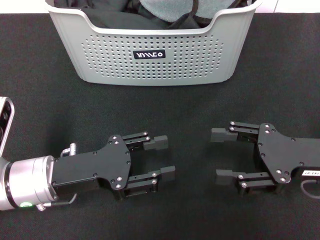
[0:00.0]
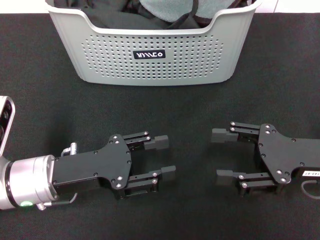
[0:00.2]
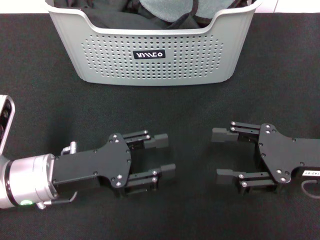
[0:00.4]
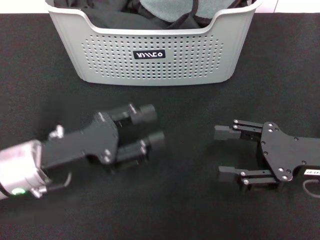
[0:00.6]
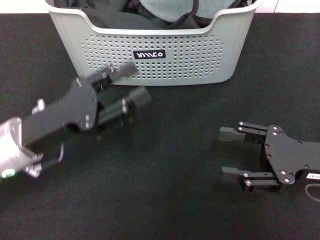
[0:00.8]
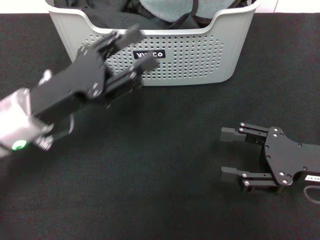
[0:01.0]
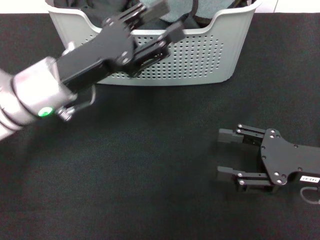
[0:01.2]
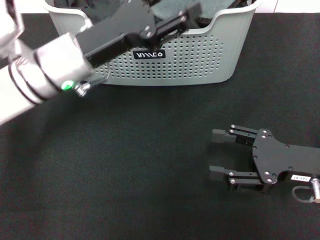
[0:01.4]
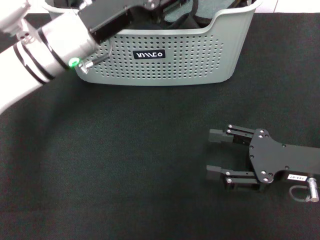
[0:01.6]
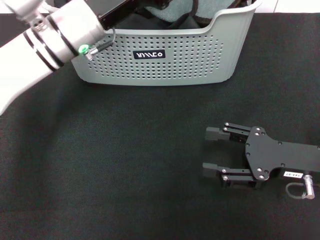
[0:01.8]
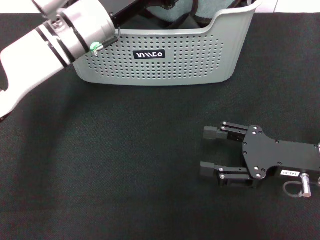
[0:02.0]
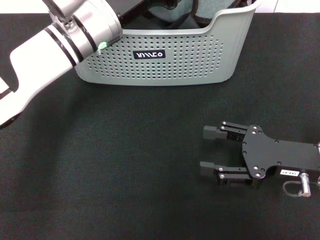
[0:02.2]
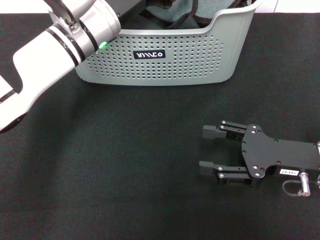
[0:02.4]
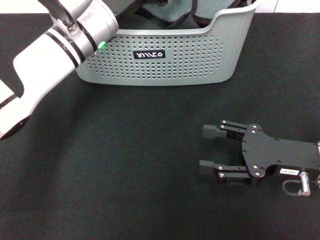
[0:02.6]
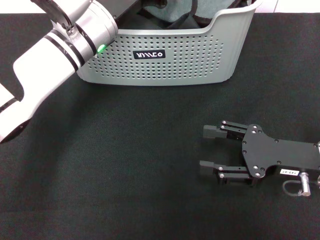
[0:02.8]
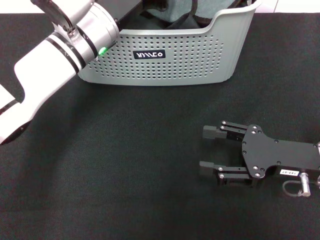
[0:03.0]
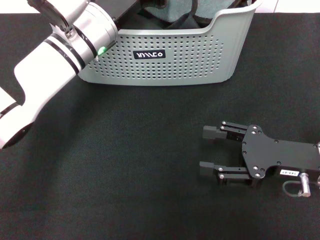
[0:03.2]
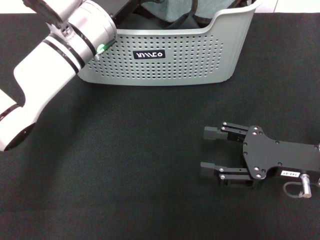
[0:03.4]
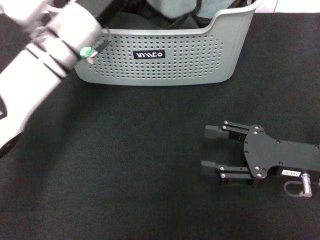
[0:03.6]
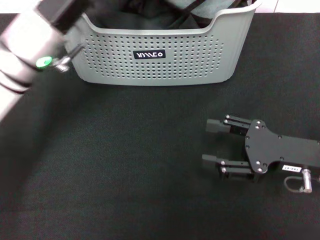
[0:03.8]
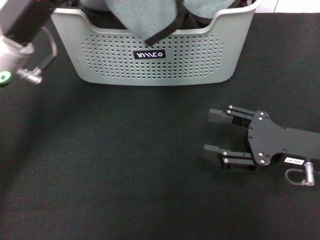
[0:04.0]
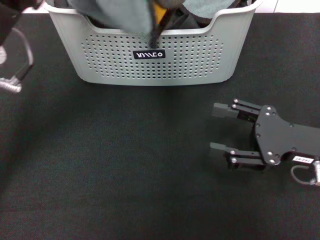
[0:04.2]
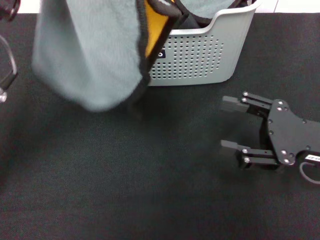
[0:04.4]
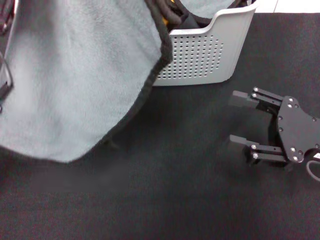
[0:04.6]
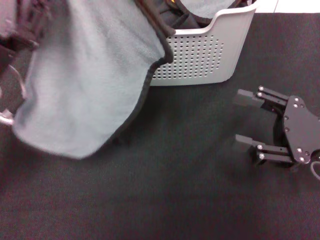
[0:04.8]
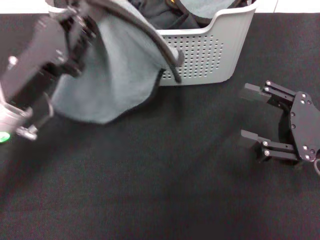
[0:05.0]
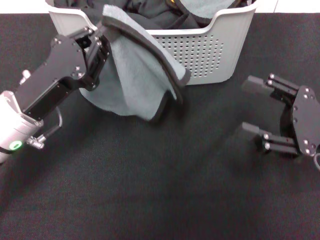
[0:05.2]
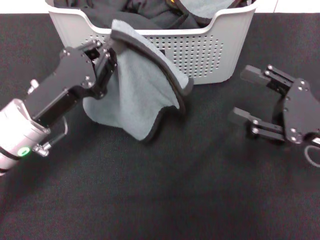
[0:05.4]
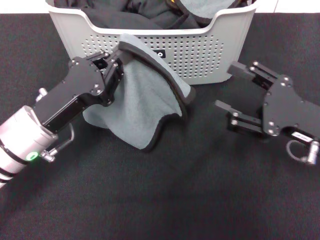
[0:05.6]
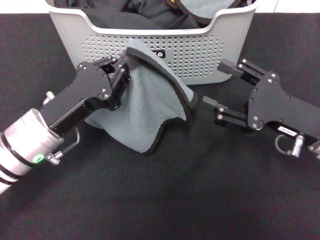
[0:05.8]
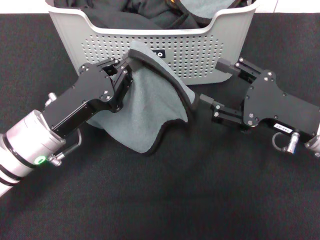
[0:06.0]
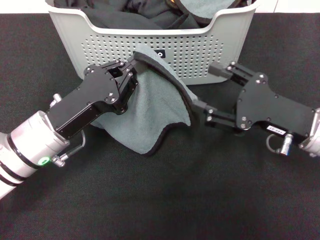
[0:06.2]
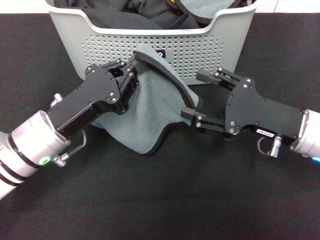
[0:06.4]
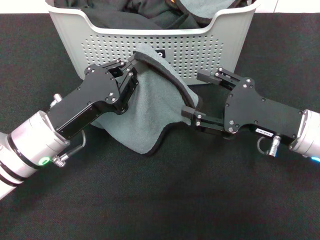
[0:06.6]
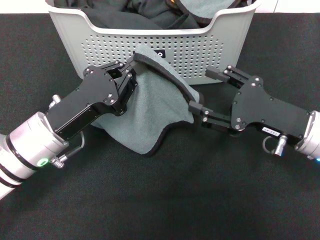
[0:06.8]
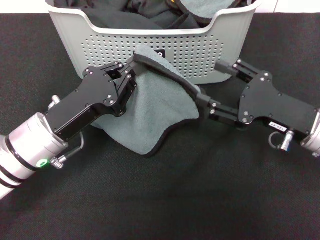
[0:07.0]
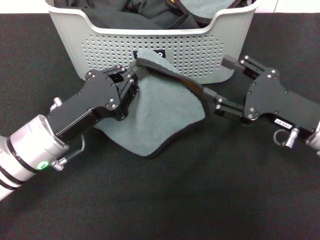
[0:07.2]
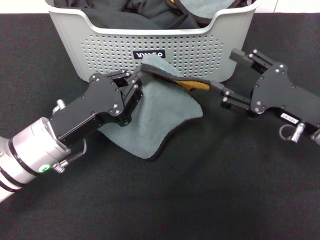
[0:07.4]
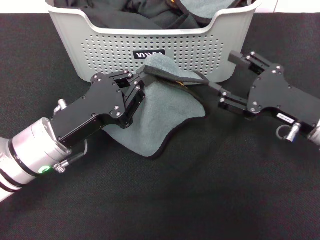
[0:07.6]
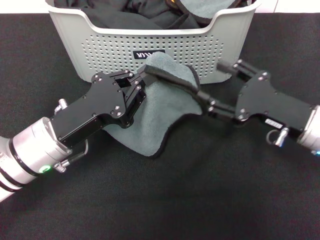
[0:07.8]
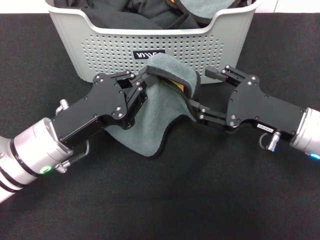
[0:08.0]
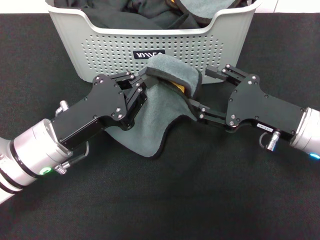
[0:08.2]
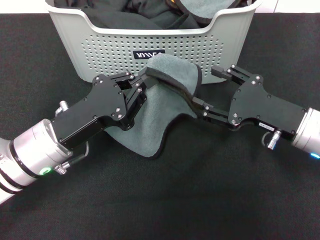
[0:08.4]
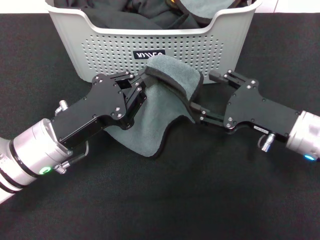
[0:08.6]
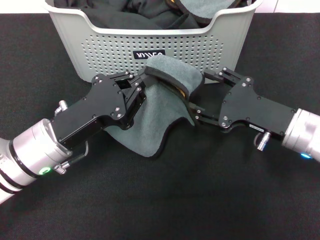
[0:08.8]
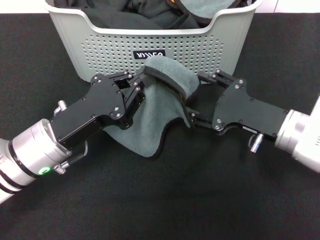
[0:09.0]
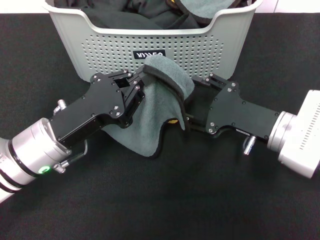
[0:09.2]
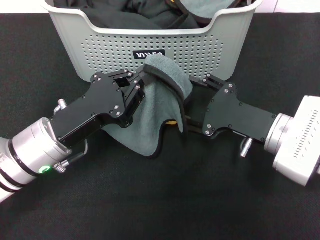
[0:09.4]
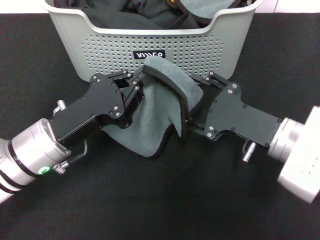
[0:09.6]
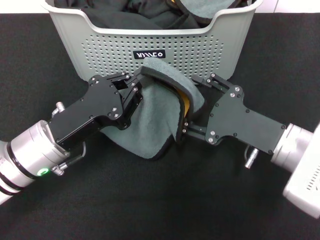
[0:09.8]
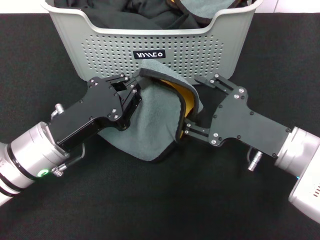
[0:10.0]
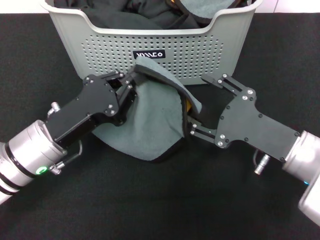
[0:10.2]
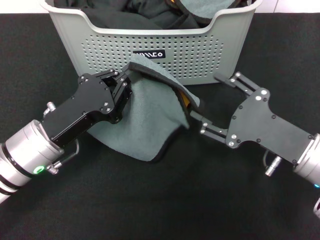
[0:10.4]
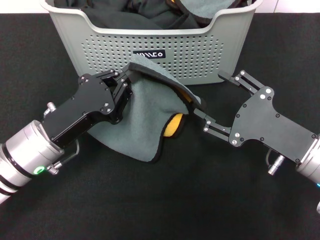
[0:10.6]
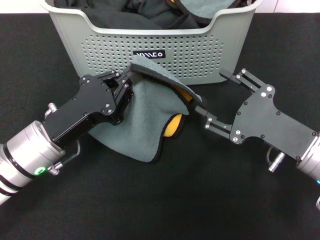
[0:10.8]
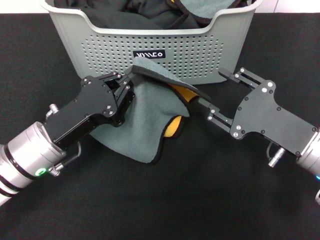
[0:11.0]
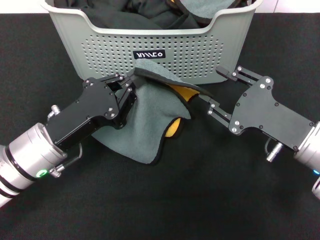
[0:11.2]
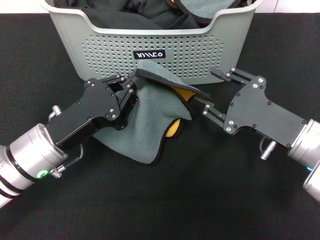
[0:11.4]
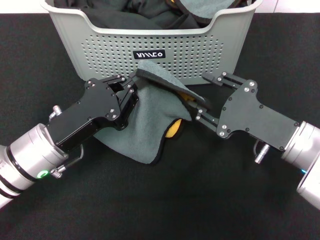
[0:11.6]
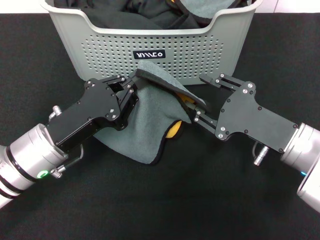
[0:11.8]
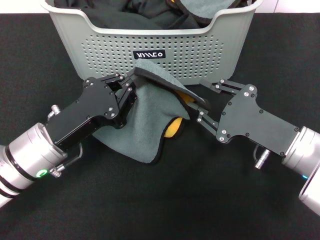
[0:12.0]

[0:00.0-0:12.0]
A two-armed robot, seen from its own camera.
Task of the whole recording: pick up the towel from the storage box and lay it flat on the black tablecloth.
Step, 0:00.0 to 0:03.2: Pick up a towel with the left gripper.
0:00.0 to 0:01.6: The left gripper heads forward and upward, covering some 15 cm.
0:01.6 to 0:03.0: The left gripper closes.
0:03.0 to 0:04.4: The left gripper goes roughly 15 cm backward, to the left and upward, and closes up.
0:04.4 to 0:06.0: The left gripper shifts about 10 cm downward.
0:06.0 to 0:07.6: The grippers move only a little.
0:07.6 to 0:09.0: The grippers move only a little.
0:09.0 to 0:10.4: The right gripper travels backward by some 5 cm.
0:10.4 to 0:12.0: The grippers stay close to where they were, moving slightly.

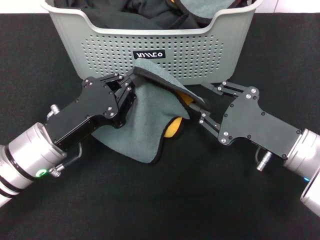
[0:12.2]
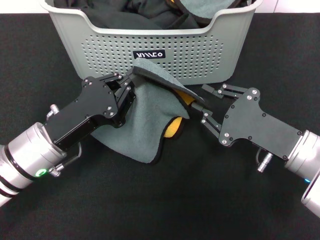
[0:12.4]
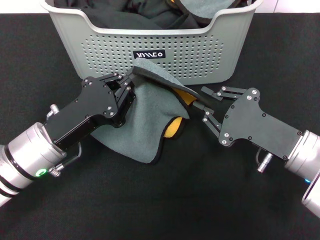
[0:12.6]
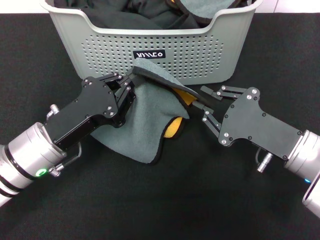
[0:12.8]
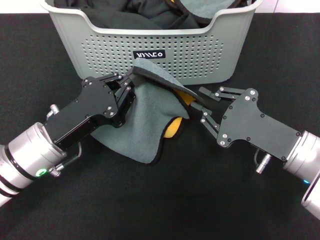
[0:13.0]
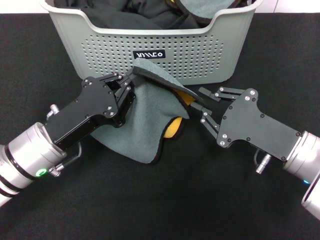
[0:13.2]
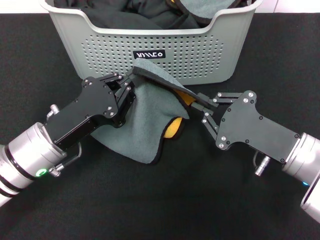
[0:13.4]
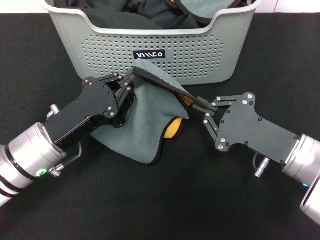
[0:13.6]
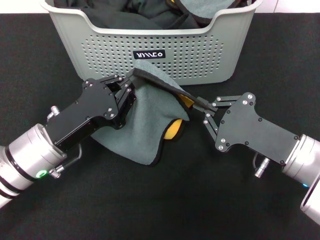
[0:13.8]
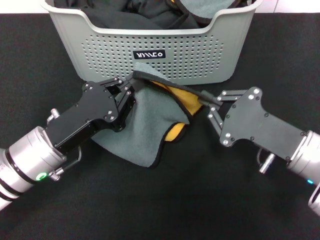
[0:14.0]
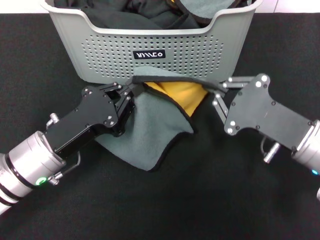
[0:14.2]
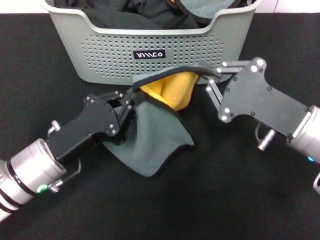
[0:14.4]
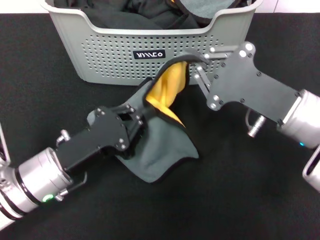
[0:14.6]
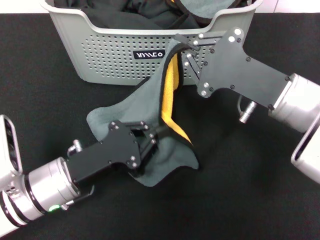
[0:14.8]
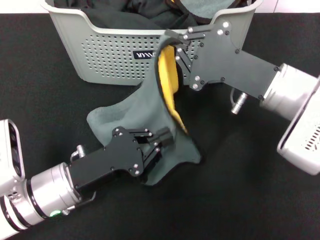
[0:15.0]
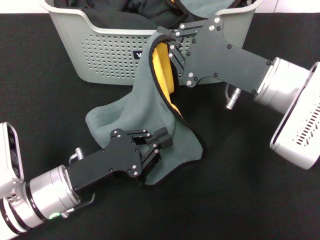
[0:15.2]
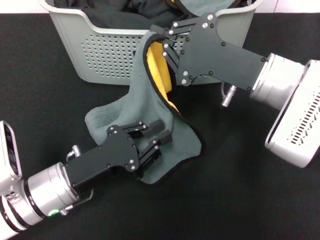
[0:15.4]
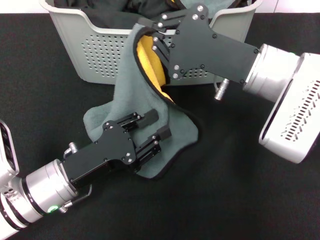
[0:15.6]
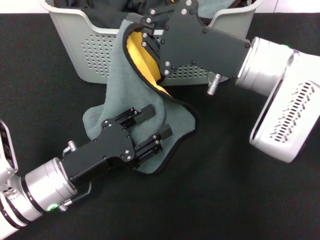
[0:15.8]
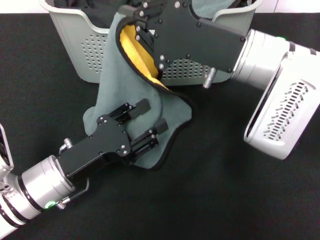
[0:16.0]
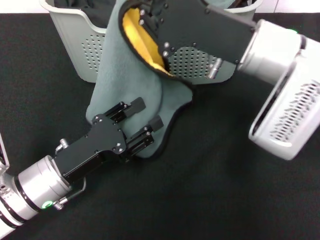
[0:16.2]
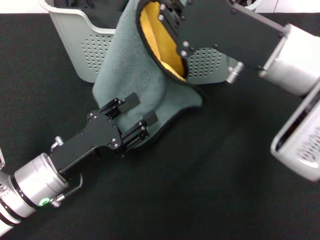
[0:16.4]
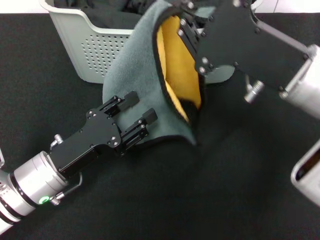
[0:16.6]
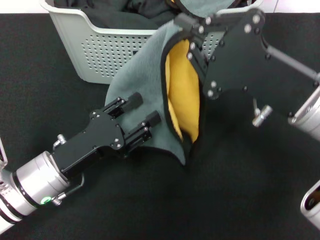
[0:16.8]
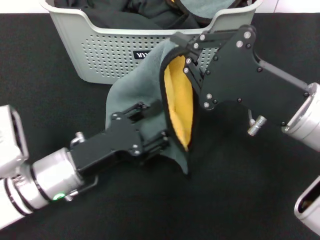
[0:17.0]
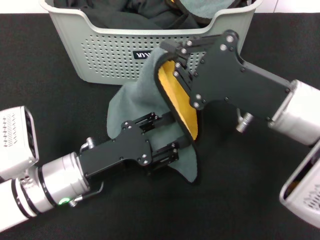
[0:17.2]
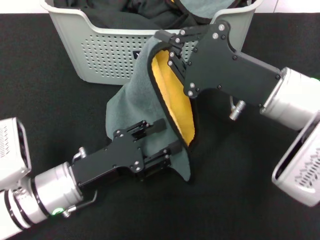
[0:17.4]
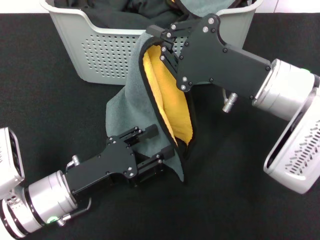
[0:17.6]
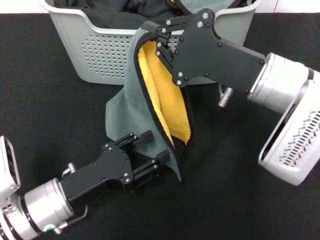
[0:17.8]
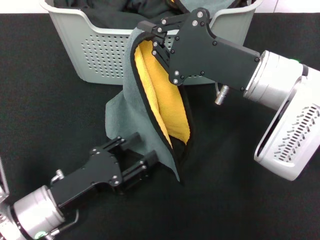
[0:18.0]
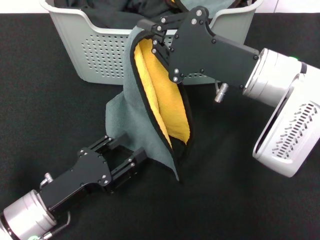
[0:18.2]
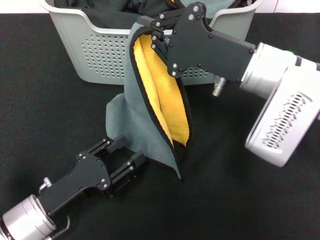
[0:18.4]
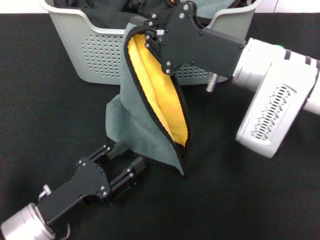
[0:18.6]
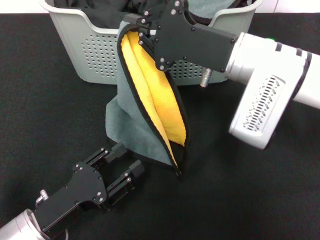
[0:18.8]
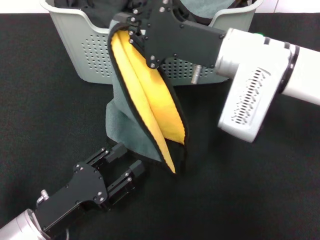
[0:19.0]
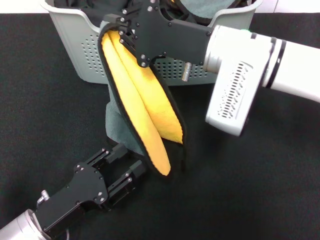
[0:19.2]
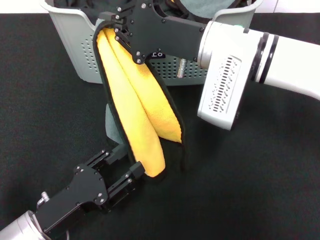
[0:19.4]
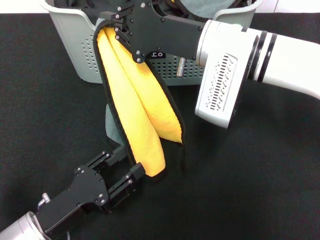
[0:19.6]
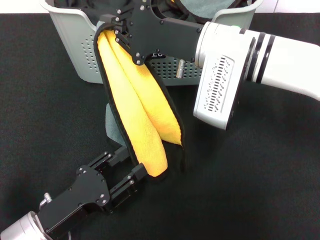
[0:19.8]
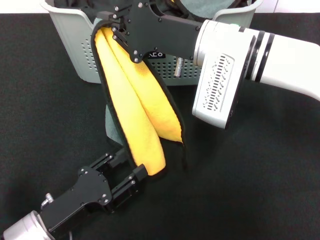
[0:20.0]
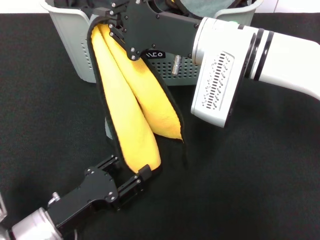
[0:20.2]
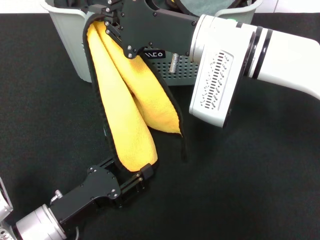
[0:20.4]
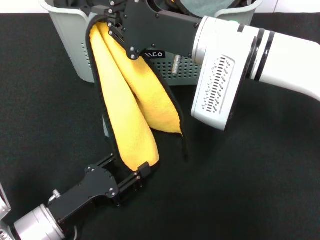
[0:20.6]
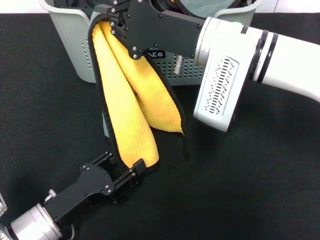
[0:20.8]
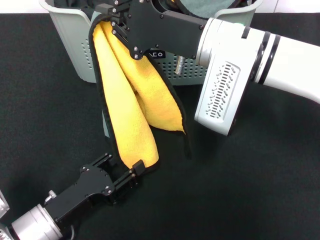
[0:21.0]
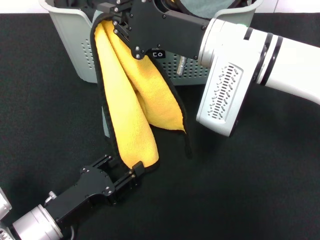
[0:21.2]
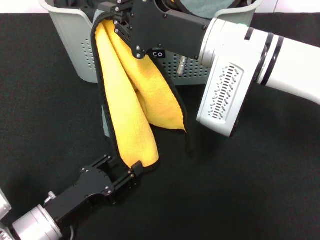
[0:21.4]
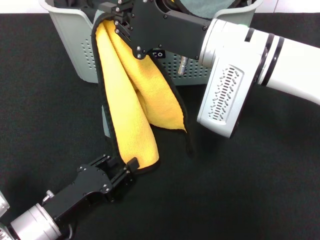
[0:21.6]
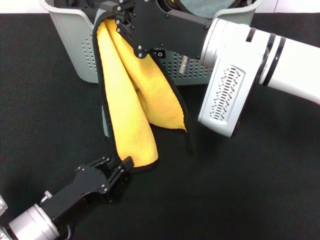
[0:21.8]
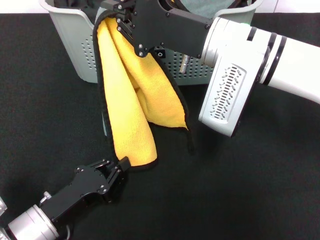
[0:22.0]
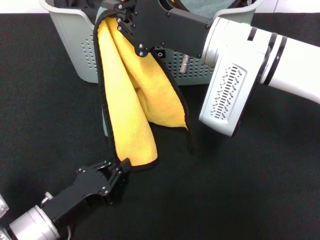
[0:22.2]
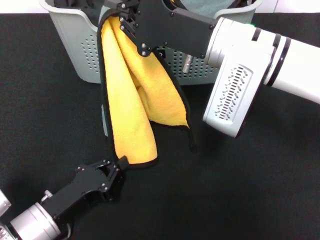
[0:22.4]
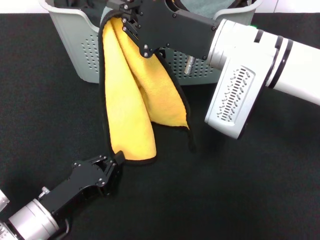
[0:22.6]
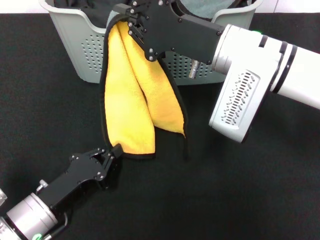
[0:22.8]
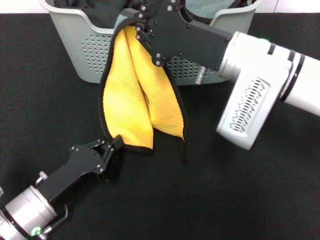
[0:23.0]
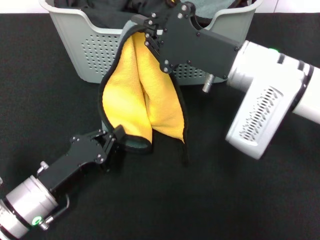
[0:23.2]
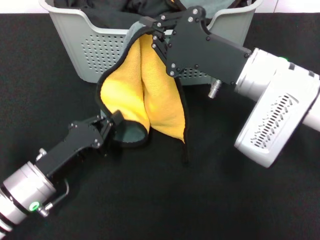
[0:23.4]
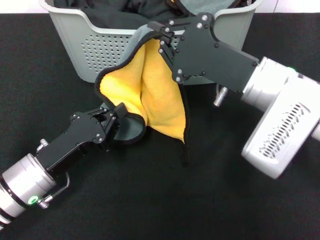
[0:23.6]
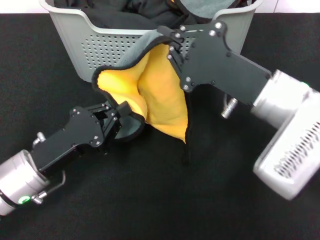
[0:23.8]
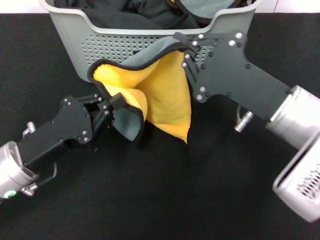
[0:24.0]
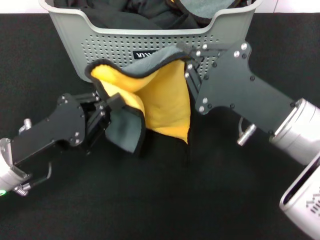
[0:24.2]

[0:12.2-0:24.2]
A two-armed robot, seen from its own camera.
Task of the whole recording: pick up the towel from the storage box and lay it flat on the black tablecloth.
0:12.2 to 0:13.8: The right gripper closes.
0:13.8 to 0:15.2: The right gripper moves upward and forward, some 10 cm.
0:15.2 to 0:16.6: The left gripper opens, while the right gripper changes place by approximately 5 cm.
0:16.6 to 0:18.2: The right gripper shifts by roughly 5 cm, while the left gripper changes place by about 5 cm.
0:18.2 to 0:19.8: The right gripper is displaced to the left by some 5 cm.
0:19.8 to 0:21.2: The grippers make only small movements.
0:21.2 to 0:22.6: The left gripper closes its fingers.
0:22.6 to 0:24.2: The right gripper shifts approximately 15 cm backward and to the right, while the left gripper heads upward and forward, covering about 10 cm.
